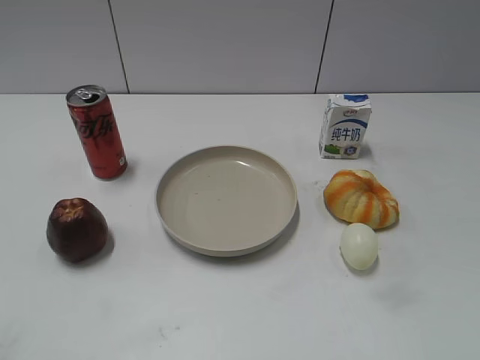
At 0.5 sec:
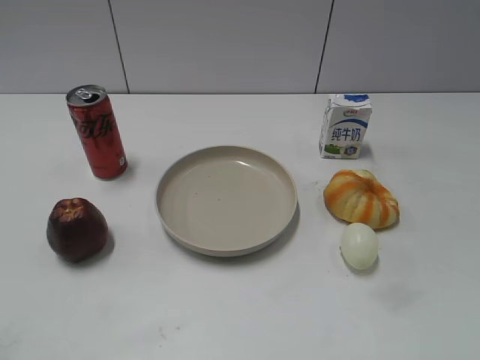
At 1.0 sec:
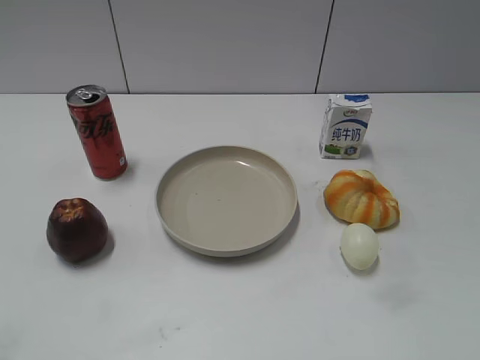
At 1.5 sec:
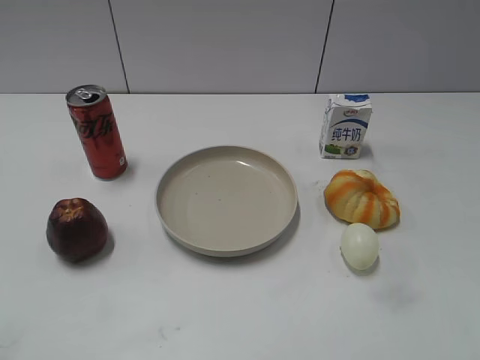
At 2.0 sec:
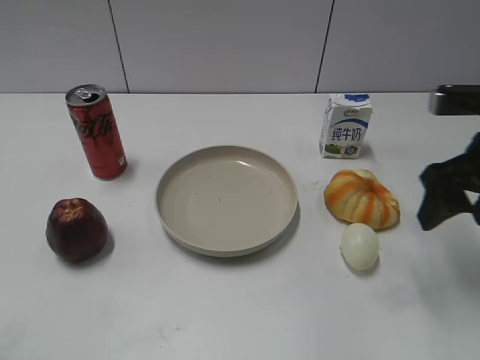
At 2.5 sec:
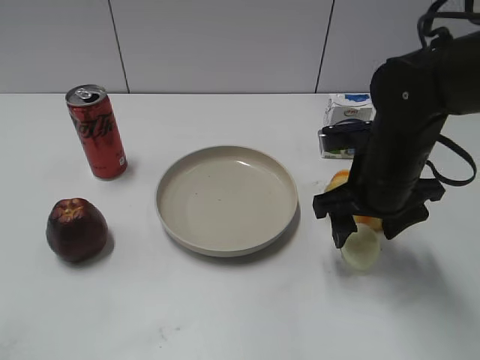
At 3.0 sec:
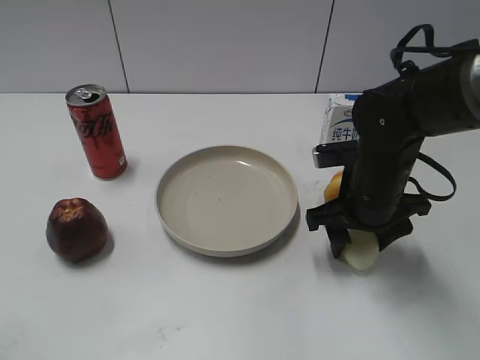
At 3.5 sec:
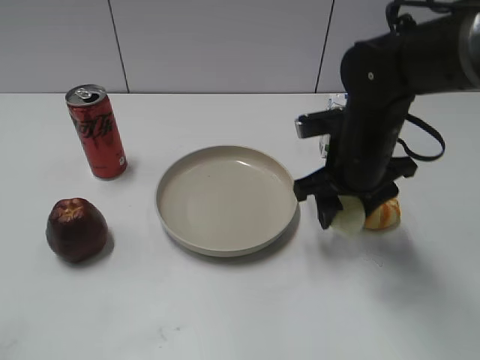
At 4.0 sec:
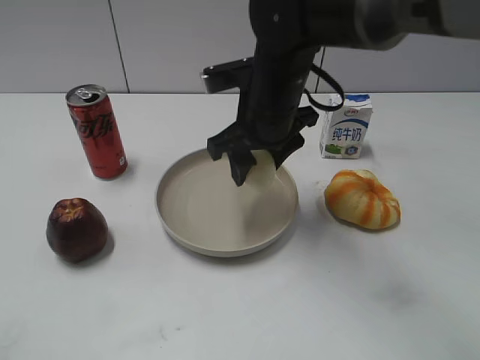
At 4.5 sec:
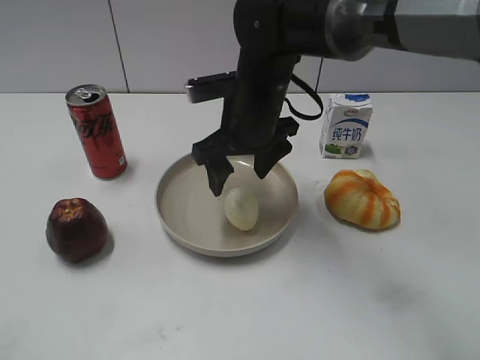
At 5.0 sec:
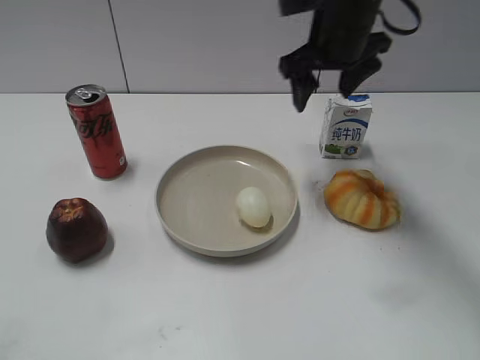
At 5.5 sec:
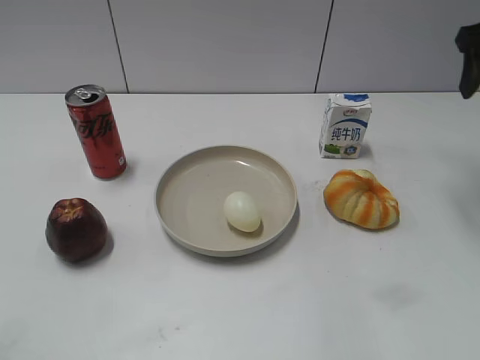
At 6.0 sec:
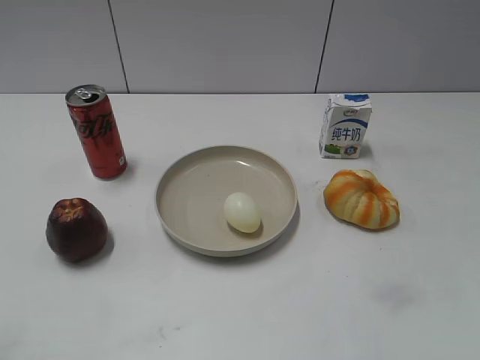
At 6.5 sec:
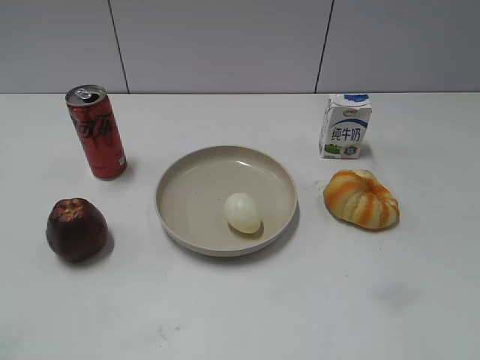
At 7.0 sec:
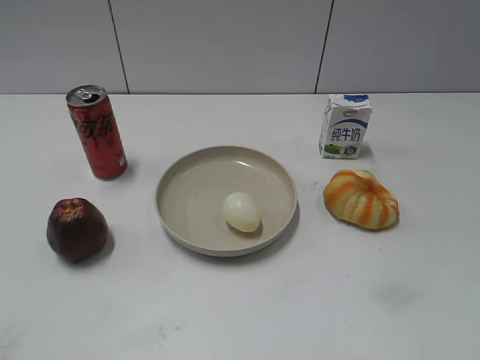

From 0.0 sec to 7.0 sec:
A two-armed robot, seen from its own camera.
Step, from 0.0 sec to 3.0 sec: Grasp the egg with right gripper.
Step, from 3.5 sec to 4.5 sec: Place the egg on the plate with right gripper.
From 2.0 sec to 3.5 sec: The right gripper is displaced to the left, downward and forward by roughly 15 cm, and closes.
From 3.5 sec to 5.0 sec: The right gripper is displaced forward and upward by some 15 cm, travels to the left and back again, approximately 10 cm each way, and opens up.
From 5.0 sec to 7.0 sec: The right gripper goes approximately 40 cm backward and to the right.
